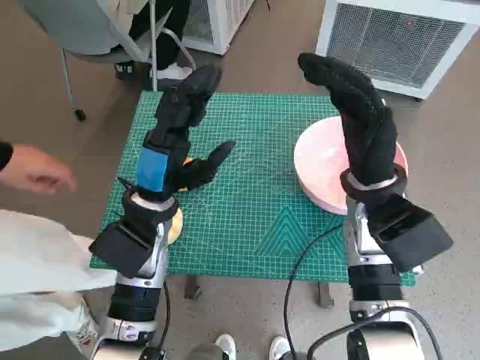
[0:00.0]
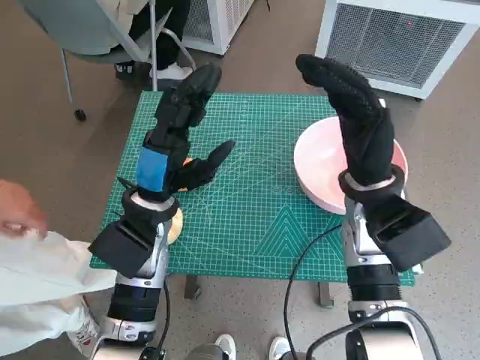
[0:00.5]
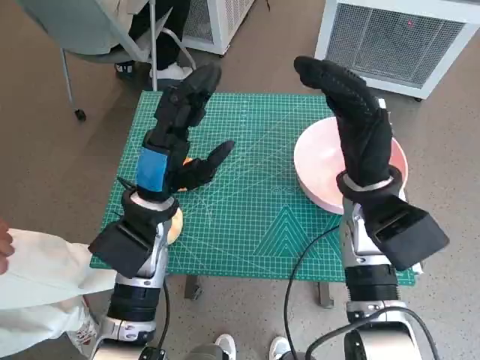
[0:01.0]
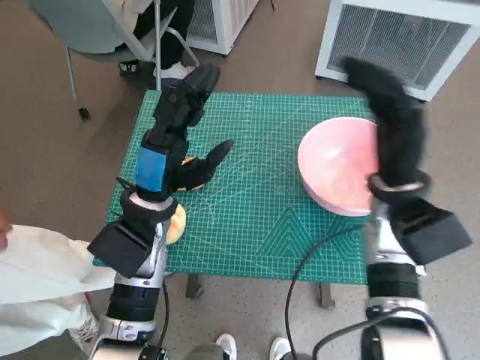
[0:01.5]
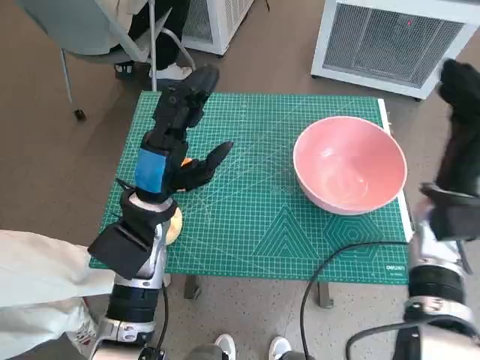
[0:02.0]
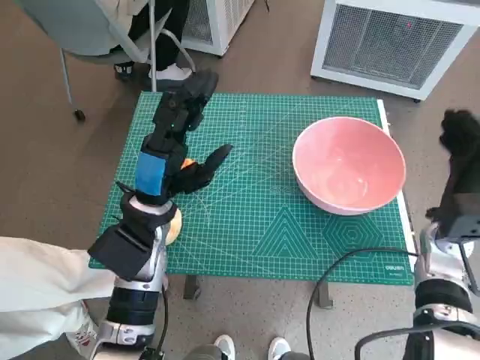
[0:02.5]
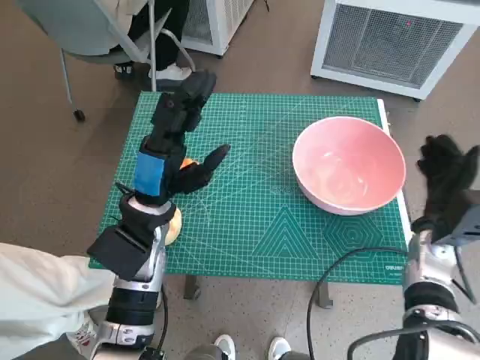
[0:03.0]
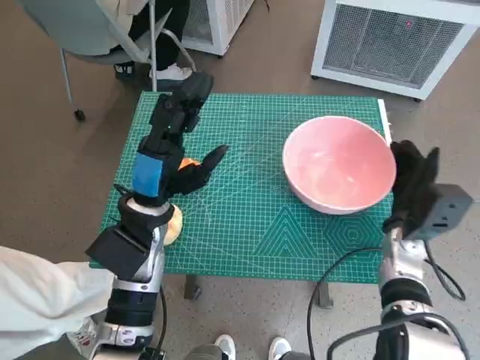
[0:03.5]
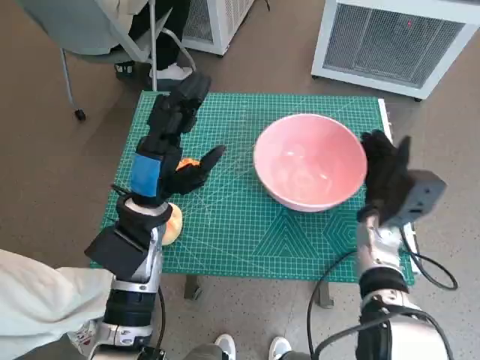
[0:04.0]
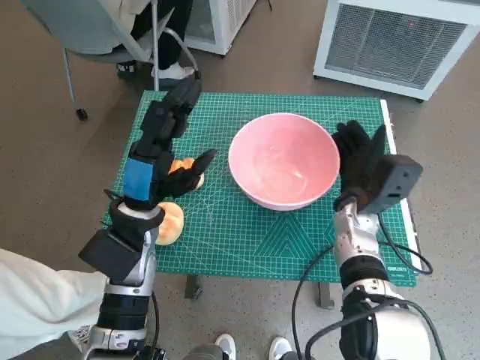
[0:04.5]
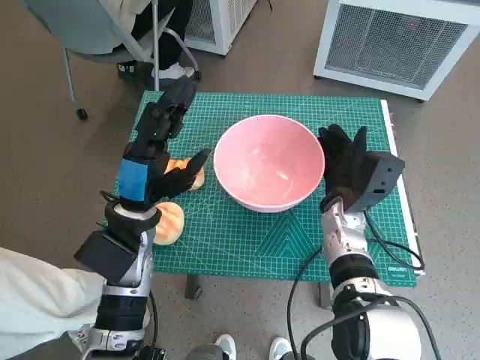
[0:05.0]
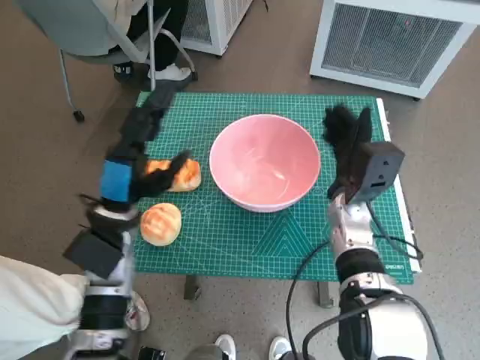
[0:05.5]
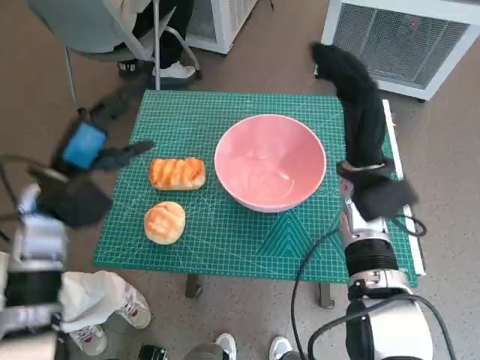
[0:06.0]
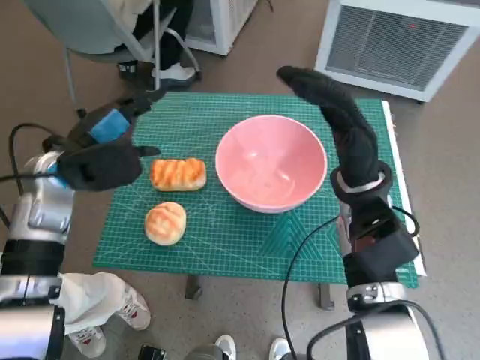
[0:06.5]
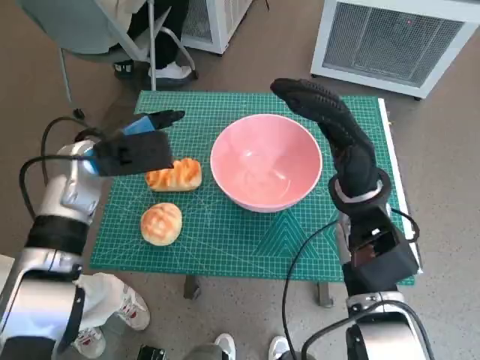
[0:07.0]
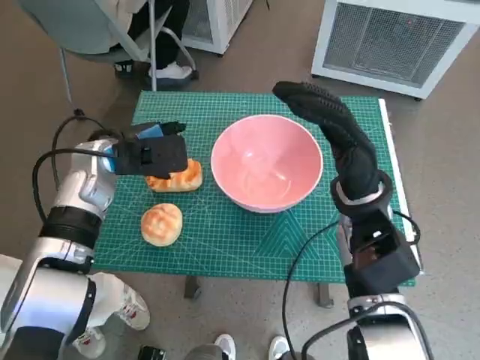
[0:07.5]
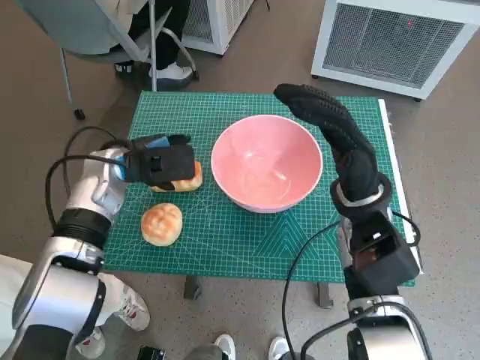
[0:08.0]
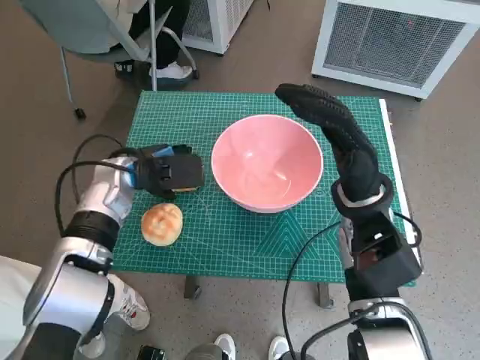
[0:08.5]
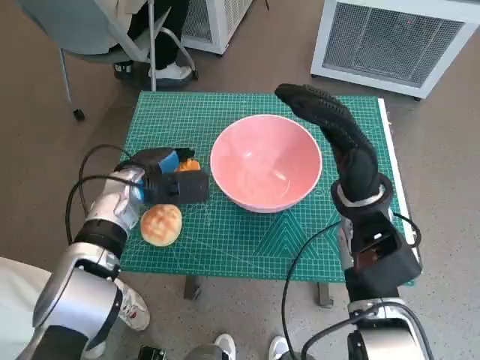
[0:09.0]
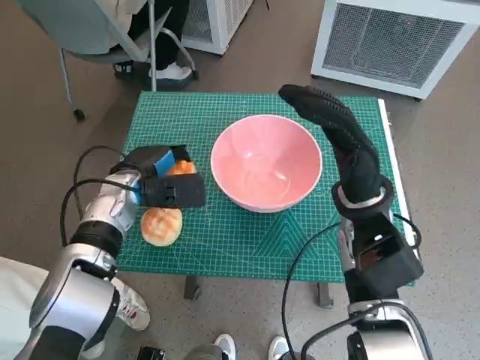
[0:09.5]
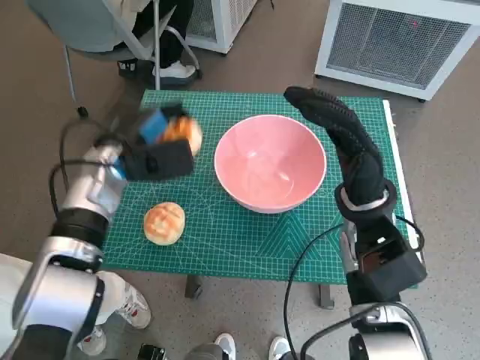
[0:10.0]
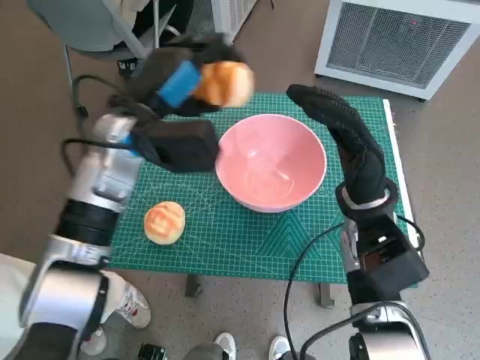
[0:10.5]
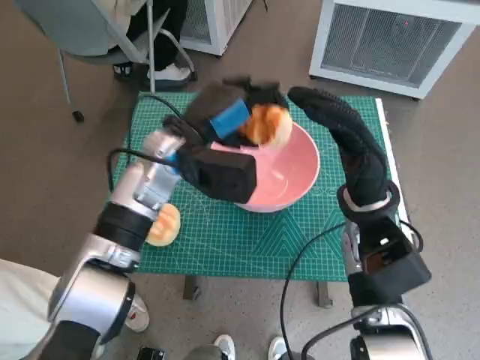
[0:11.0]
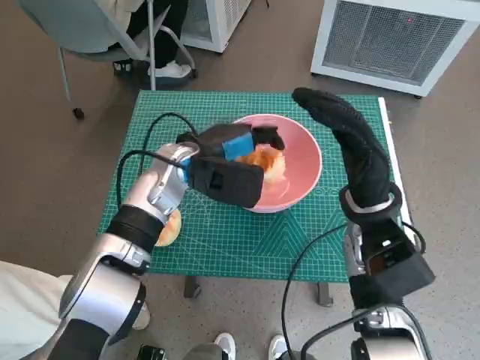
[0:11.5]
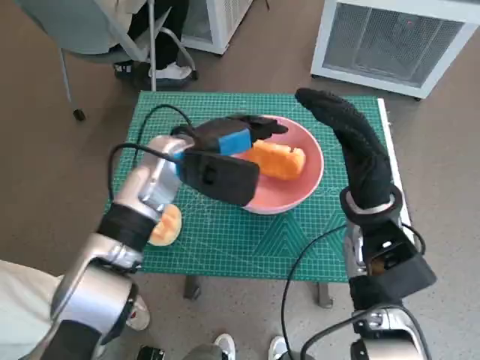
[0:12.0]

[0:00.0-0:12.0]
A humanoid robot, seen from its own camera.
Task of the whole recording: Push the bowl to the center of the table and put the bread into the bowl.
Step, 0:00.0 to 0:05.5: Move the pink bowl to the center of table with right hand.
Step, 0:06.0 to 0:08.5: Grasp the long bread with left hand.
Step, 0:09.0 to 0:11.5: Place the long bread in pink bowl with left hand.
0:02.0 to 0:04.0: The right hand goes some 10 cm downward.
0:04.0 to 0:06.0: The right hand shifts roughly 10 cm upward, while the left hand shifts some 10 cm to the left.
0:06.0 to 0:08.0: The left hand goes some 10 cm forward and to the right.
0:10.0 to 0:12.0: The left hand heads to the right, covering about 10 cm.

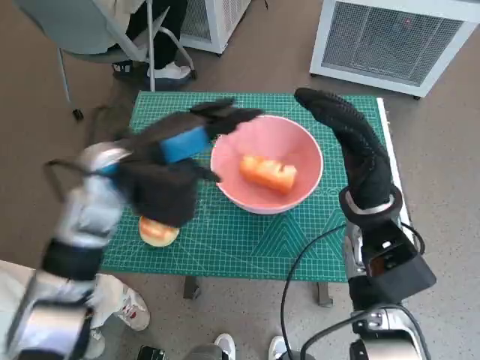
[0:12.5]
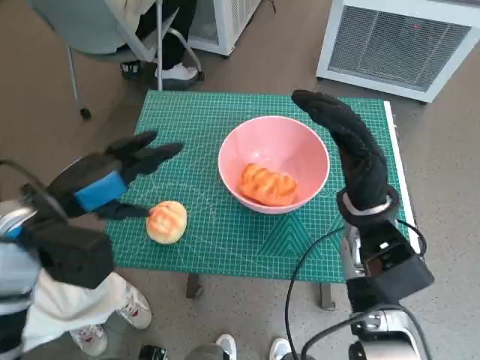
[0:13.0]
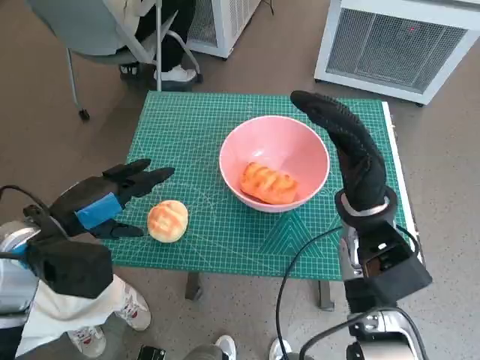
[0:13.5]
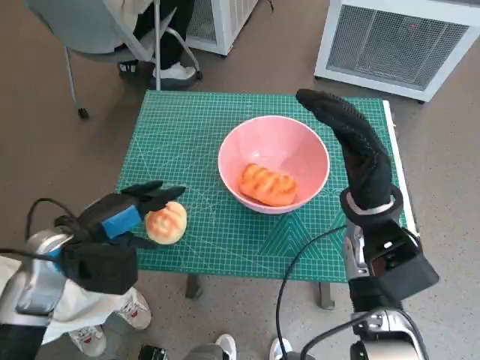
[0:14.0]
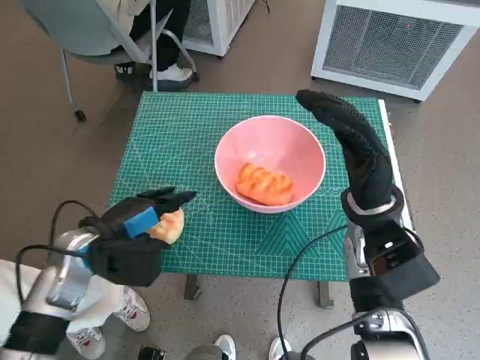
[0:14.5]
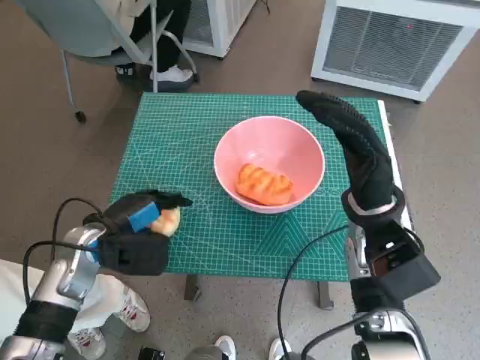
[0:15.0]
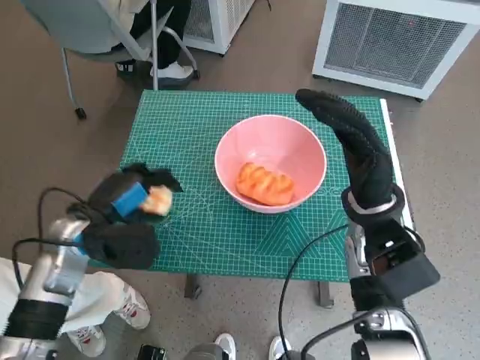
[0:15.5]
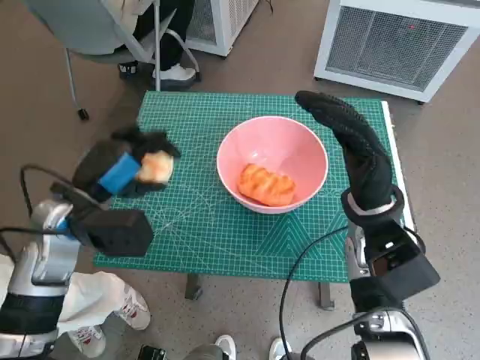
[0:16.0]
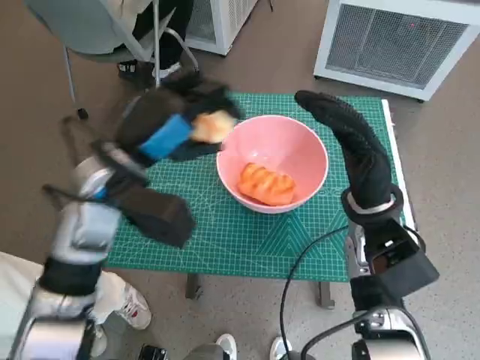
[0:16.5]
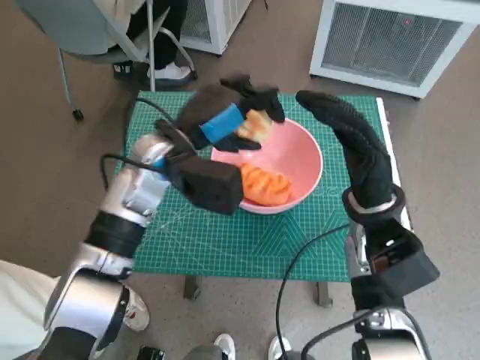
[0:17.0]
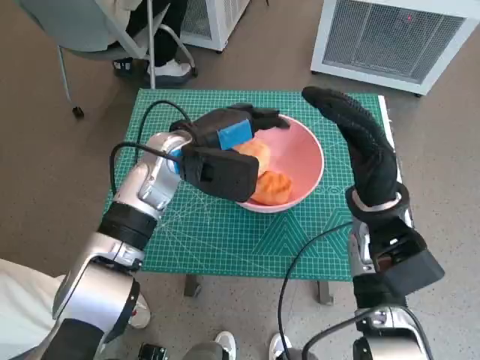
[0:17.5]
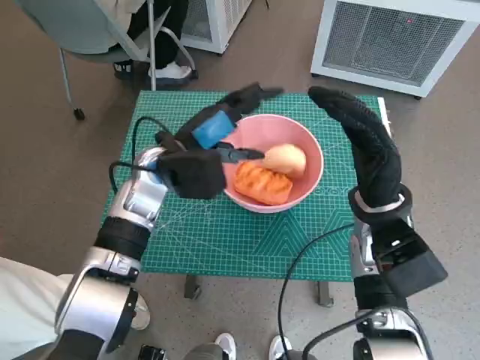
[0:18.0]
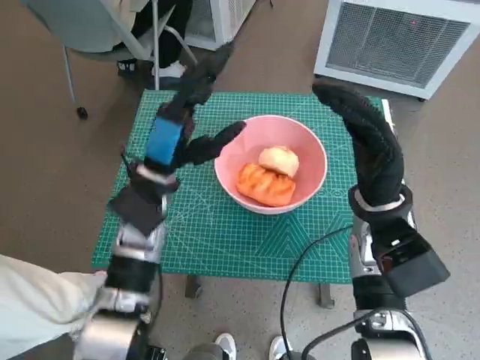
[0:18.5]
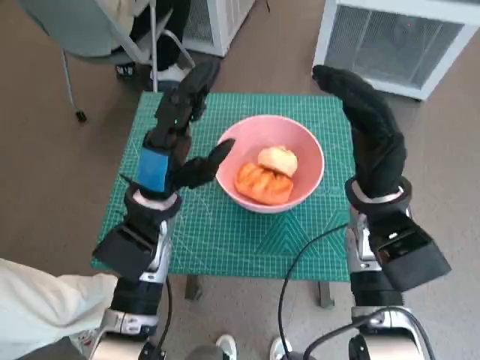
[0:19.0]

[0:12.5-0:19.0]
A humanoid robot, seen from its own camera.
Task of the whole recording: Push the bowl to the center of the table and put the bread into the bowl.
Step, 0:12.5 to 0:14.5: Grasp the round bread with left hand.
Step, 0:15.0 to 0:18.0: Place the round bread in pink bowl with left hand.
0:12.5 to 0:14.5: The left hand moves downward, to the left and backward, approximately 15 cm.
0:14.5 to 0:17.0: The left hand travels to the right, upward and forward by approximately 15 cm.
0:17.0 to 0:19.0: The left hand shifts about 10 cm downward and backward.

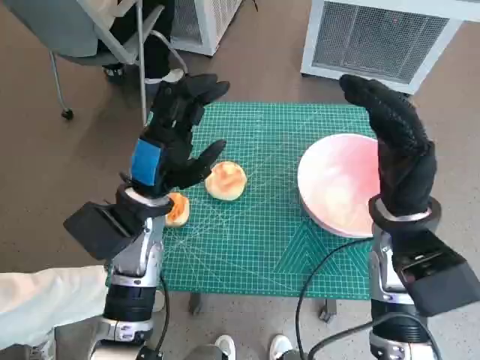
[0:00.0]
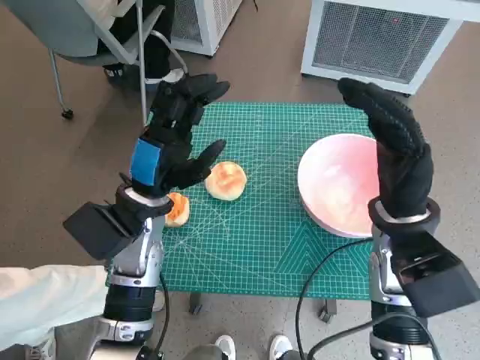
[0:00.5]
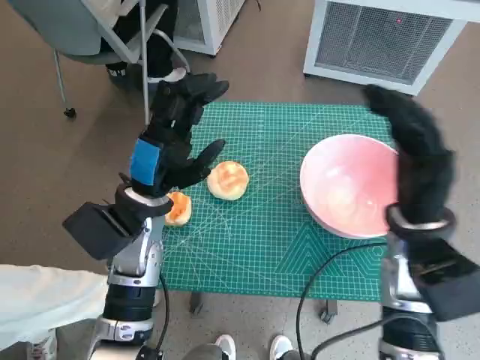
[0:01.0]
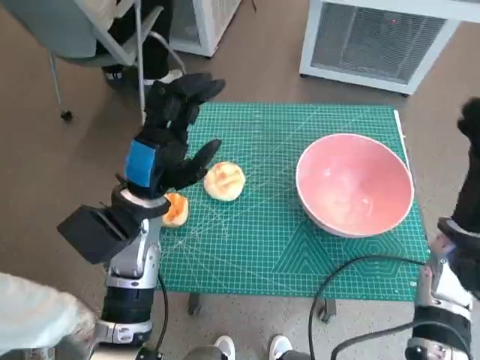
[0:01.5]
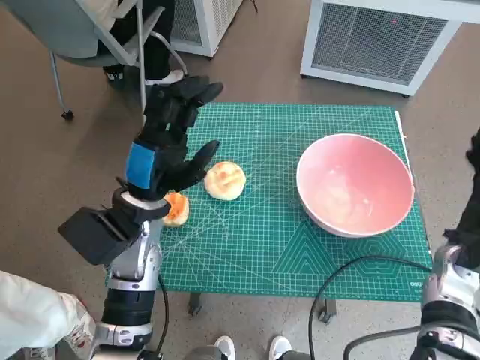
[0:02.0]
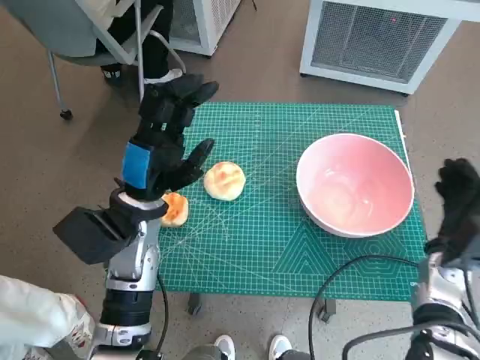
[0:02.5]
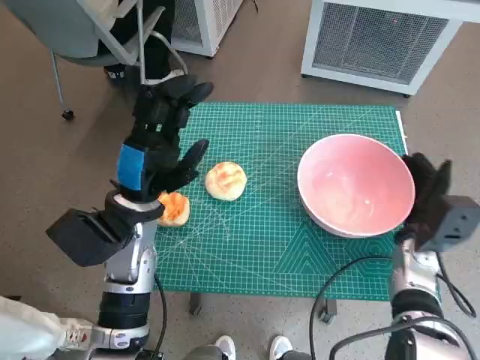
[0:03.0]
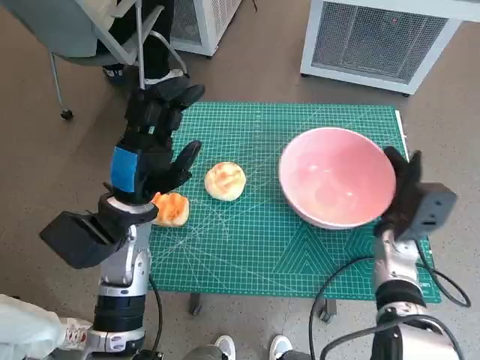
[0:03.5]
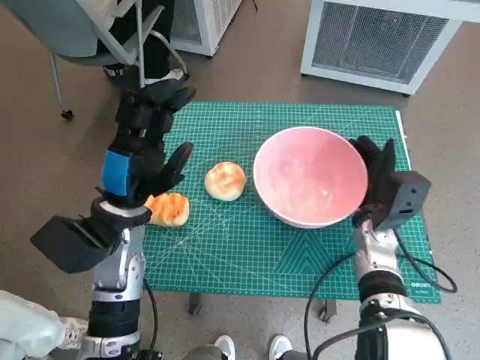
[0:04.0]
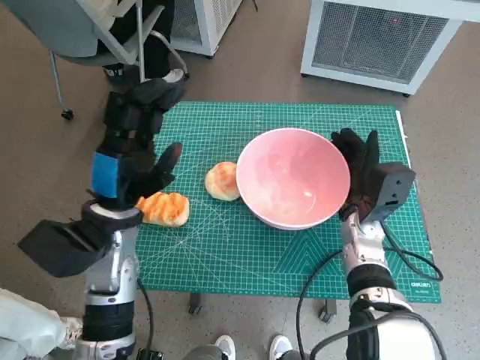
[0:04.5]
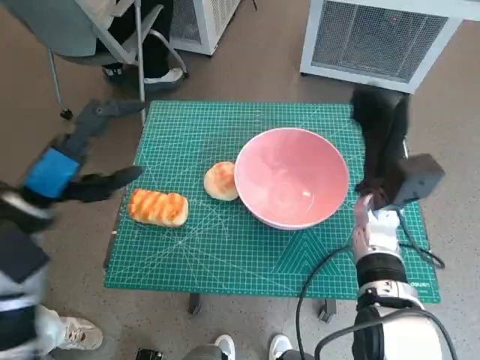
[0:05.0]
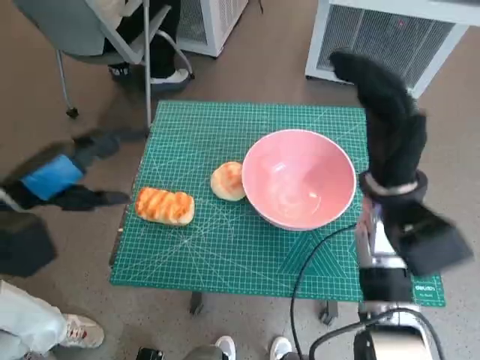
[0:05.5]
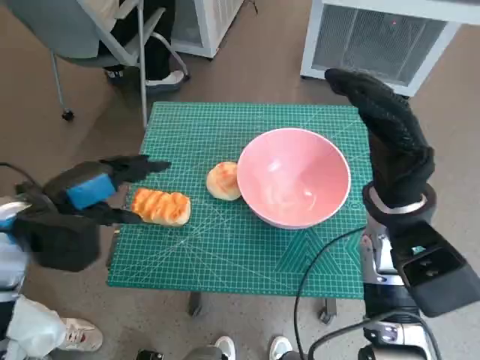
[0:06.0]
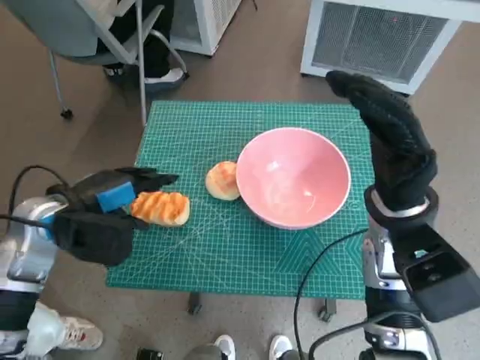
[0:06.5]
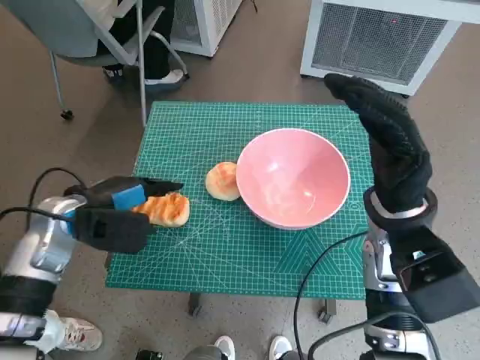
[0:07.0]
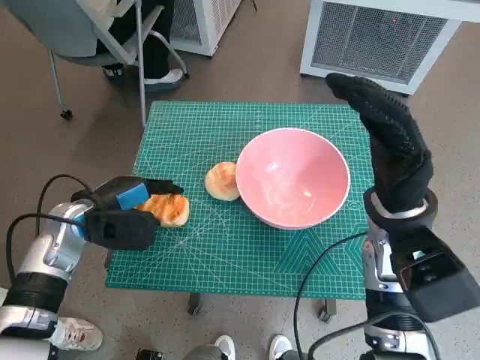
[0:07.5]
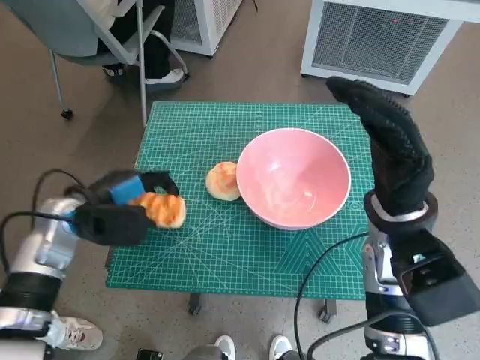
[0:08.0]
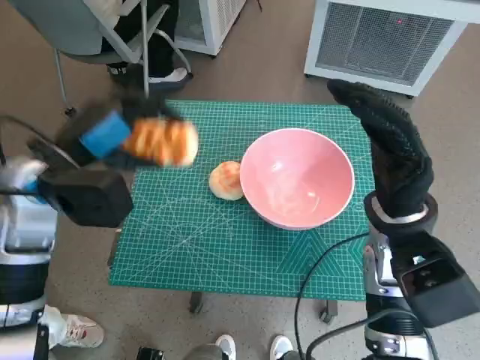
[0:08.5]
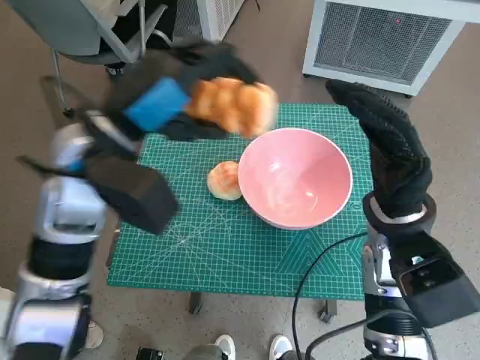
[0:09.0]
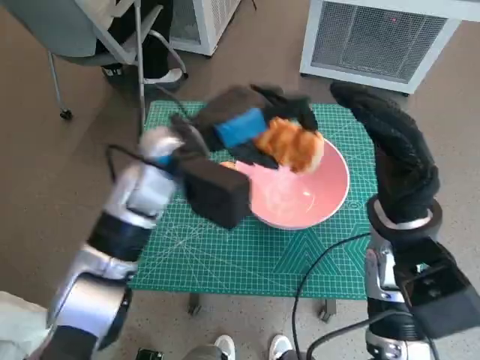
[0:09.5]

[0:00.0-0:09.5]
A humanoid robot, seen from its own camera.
Task of the whole recording: Push the bowl to the center of the table and put the bread into the bowl.
Step, 0:00.0 to 0:05.0: Move the pink bowl to the center of table with right hand.
Step, 0:05.5 to 0:07.5: Grasp the long bread with left hand.
0:02.0 to 0:04.0: The right hand is displaced to the left by approximately 10 cm.
0:04.0 to 0:05.5: The left hand travels to the left and upward by roughly 15 cm. The right hand travels upward by some 10 cm.
0:05.5 to 0:07.5: The left hand shifts approximately 10 cm downward and forward.
0:07.5 to 0:09.5: The left hand heads to the right and upward, covering approximately 20 cm.
